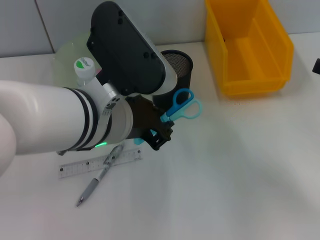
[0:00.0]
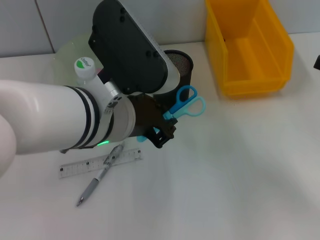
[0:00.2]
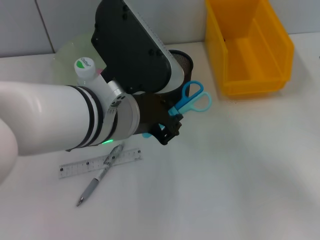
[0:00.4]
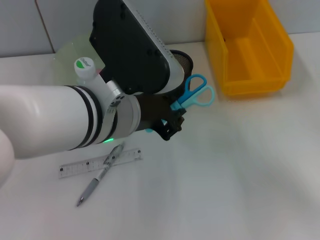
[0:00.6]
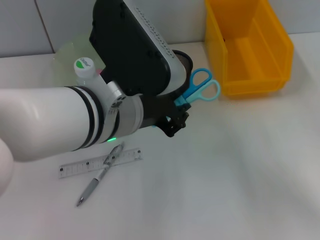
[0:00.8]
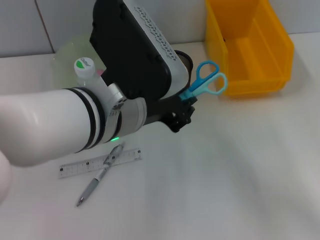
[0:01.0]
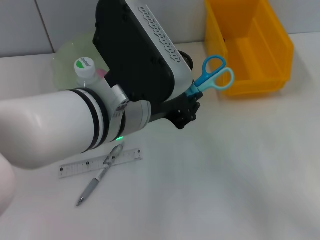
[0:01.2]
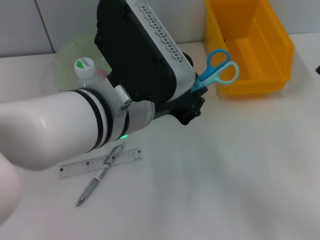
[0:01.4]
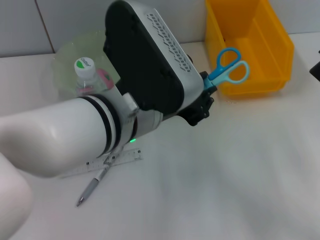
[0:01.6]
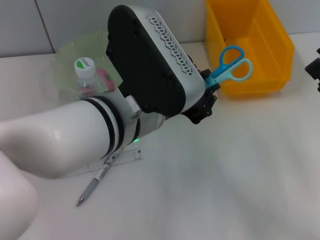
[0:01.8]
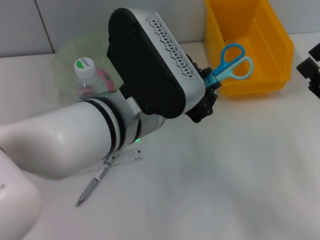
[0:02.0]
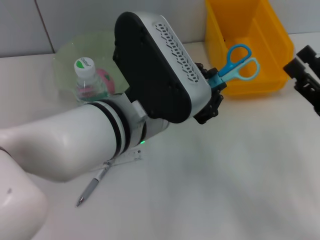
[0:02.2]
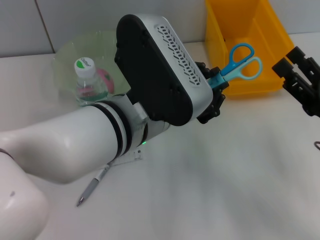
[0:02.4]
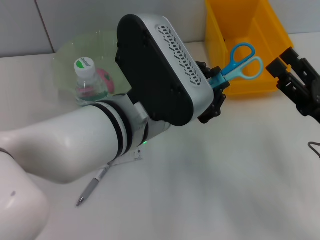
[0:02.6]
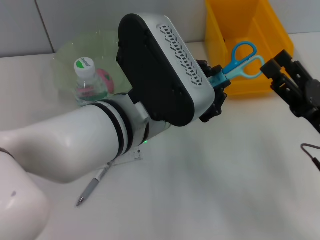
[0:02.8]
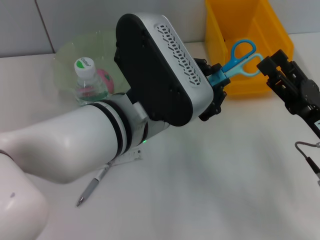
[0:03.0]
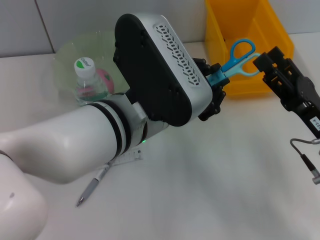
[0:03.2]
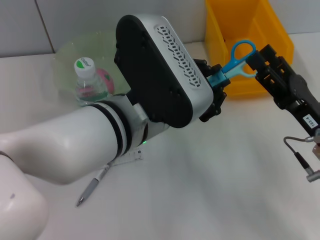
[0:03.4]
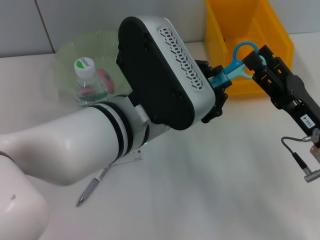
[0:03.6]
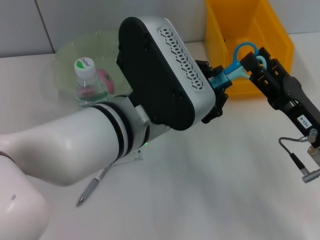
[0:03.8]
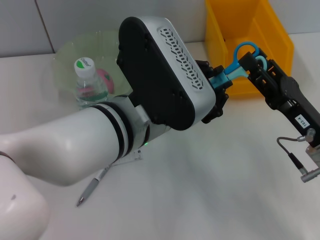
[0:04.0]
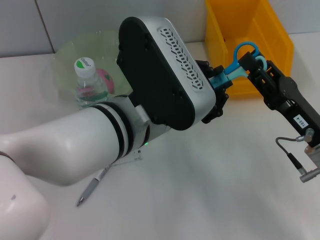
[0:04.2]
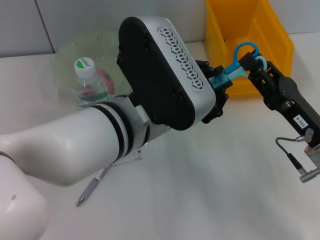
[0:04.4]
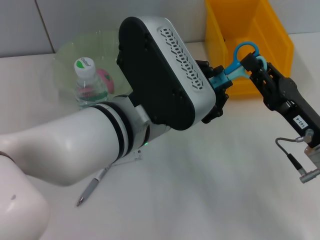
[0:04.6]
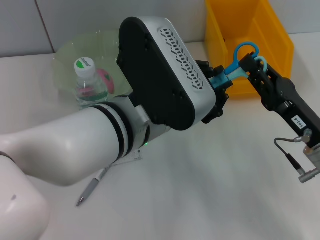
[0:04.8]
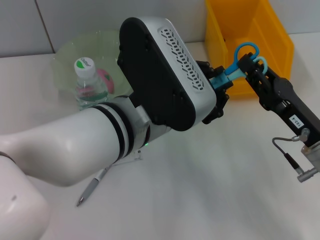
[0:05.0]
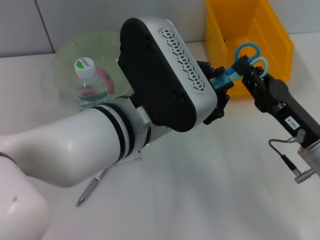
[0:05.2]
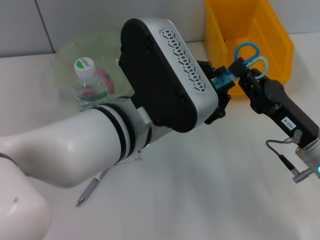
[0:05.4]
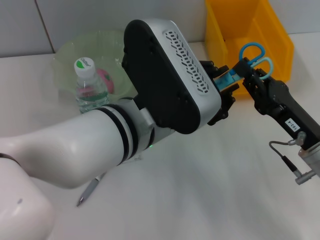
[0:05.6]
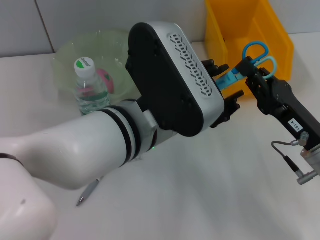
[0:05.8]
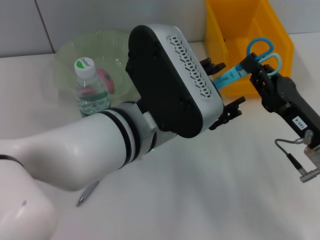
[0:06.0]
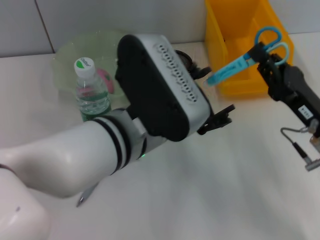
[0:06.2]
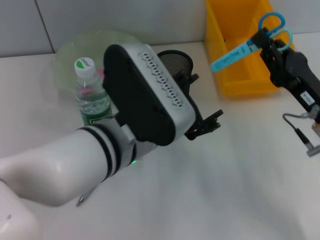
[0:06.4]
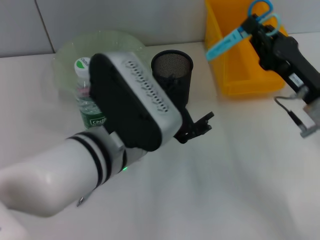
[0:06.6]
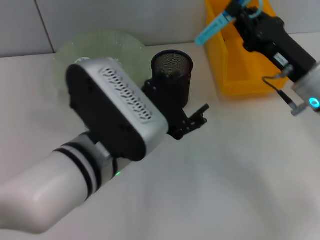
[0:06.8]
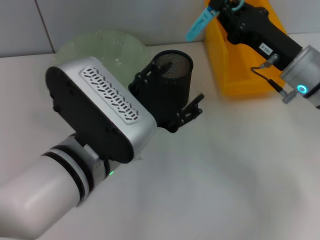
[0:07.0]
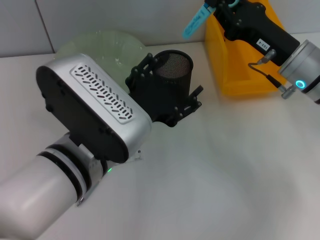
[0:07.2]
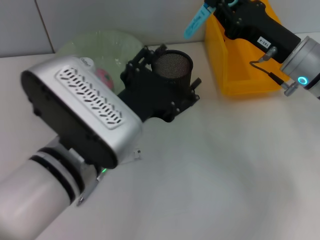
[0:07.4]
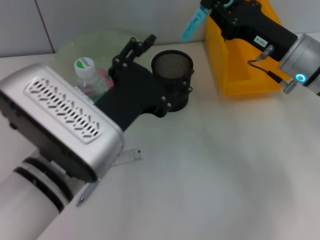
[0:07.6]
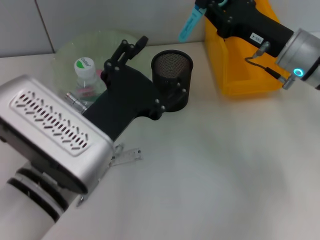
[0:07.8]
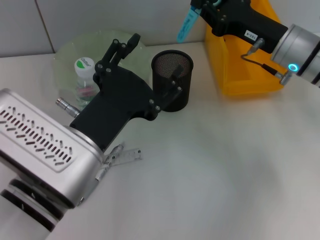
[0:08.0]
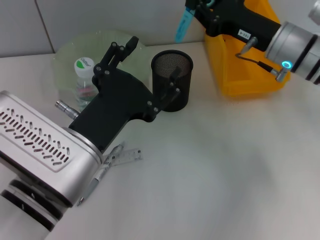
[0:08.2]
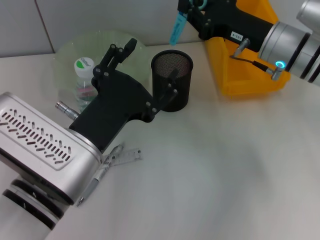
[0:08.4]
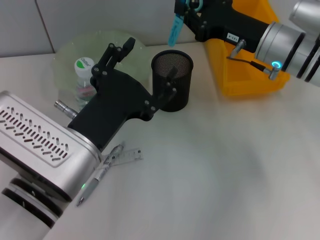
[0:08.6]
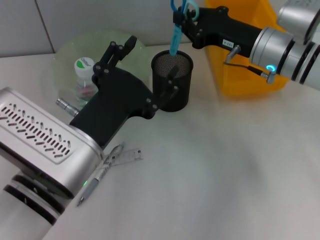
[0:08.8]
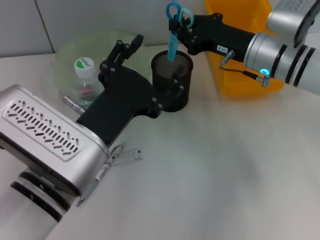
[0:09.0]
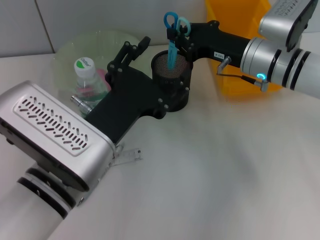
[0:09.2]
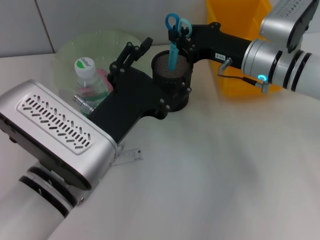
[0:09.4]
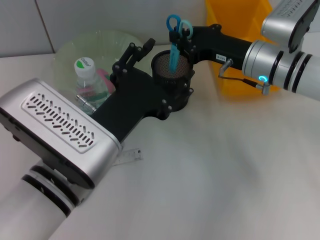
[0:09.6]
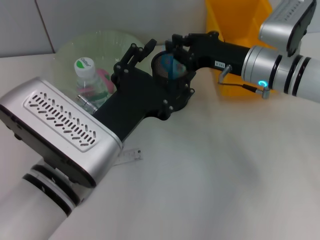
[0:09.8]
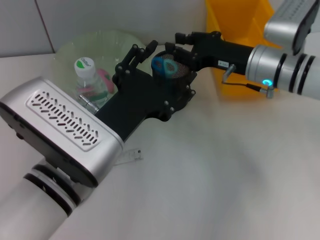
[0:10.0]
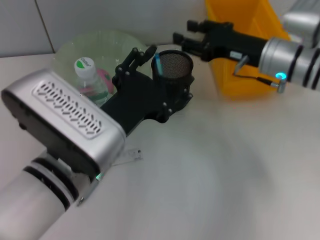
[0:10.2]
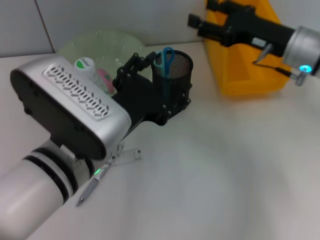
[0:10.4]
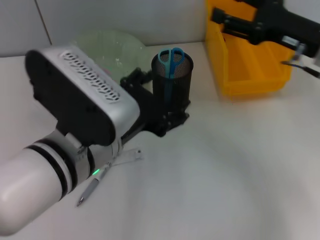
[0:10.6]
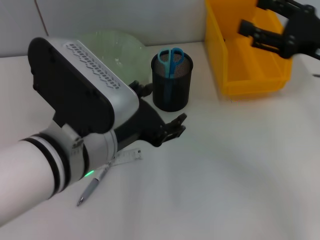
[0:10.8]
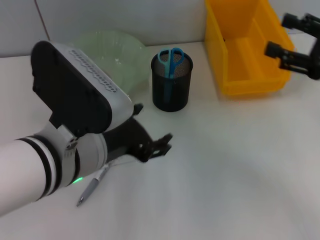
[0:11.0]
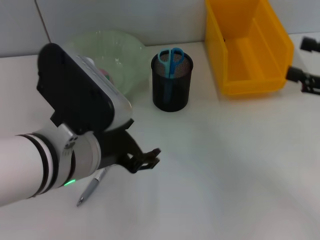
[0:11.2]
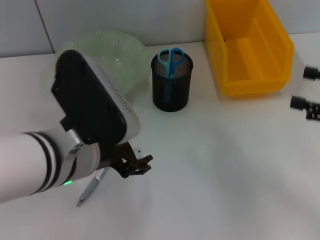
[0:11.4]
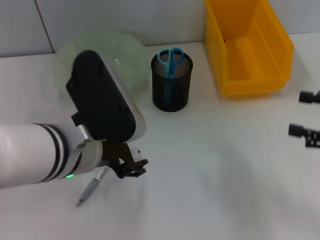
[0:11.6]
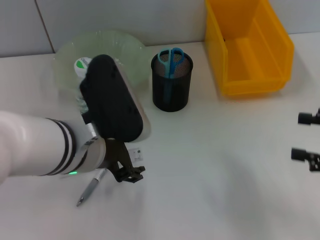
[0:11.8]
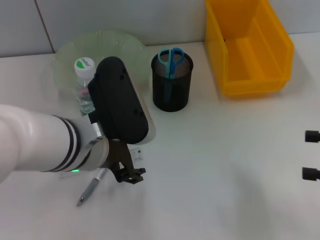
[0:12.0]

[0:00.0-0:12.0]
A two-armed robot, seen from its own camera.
Step, 0:00.0 to 0:05.4: Pass the blue scissors from the left hand to the right hand.
Step, 0:05.6 to 0:10.4: Place the blue scissors into the pen holder with the right hand.
0:00.0 to 0:01.6: The right gripper travels downward and to the left by roughly 10 cm.
0:01.6 to 0:03.0: The right gripper travels to the left by about 5 cm.
0:03.0 to 0:04.4: The right gripper closes.
0:04.4 to 0:06.0: The right gripper closes its fingers.
0:06.0 to 0:07.6: The right gripper heads forward and upward, covering roughly 15 cm, while the left gripper shifts roughly 5 cm to the left, and opens up.
0:09.0 to 0:10.4: The right gripper is displaced to the right by roughly 5 cm, and opens up.
0:10.4 to 0:12.0: The right gripper shifts roughly 20 cm backward and to the right.

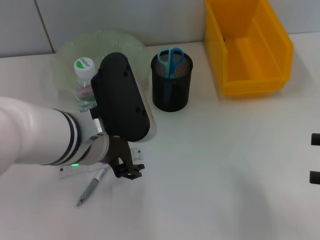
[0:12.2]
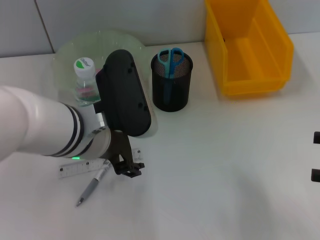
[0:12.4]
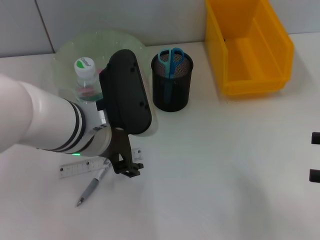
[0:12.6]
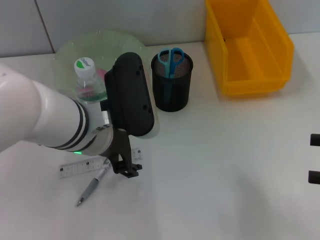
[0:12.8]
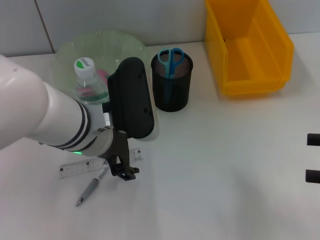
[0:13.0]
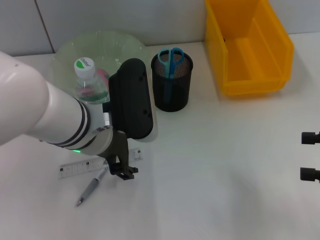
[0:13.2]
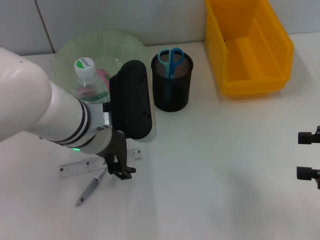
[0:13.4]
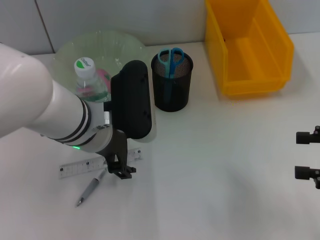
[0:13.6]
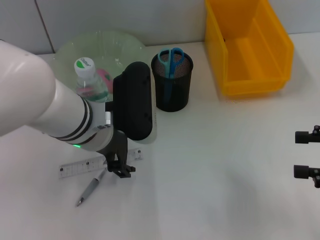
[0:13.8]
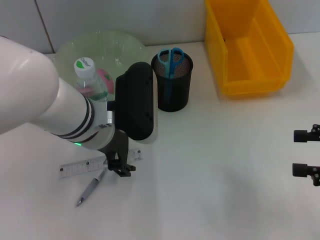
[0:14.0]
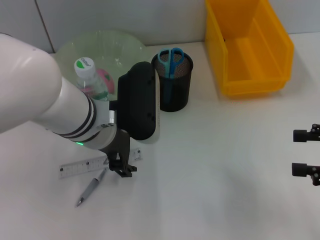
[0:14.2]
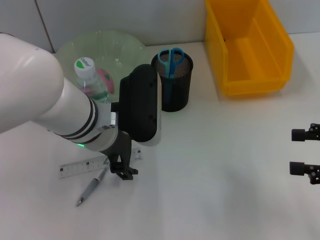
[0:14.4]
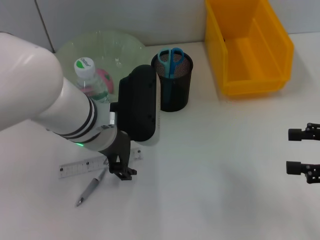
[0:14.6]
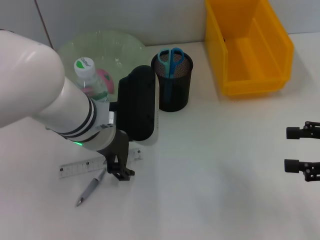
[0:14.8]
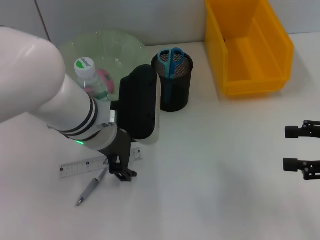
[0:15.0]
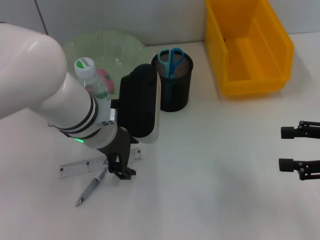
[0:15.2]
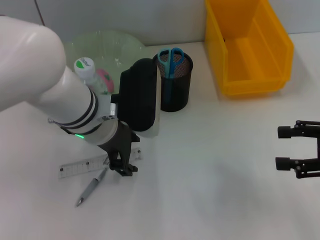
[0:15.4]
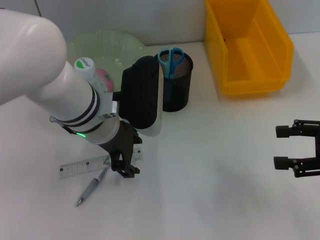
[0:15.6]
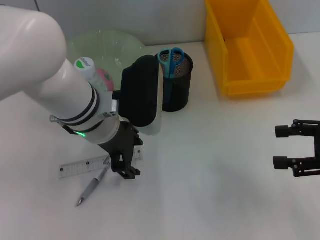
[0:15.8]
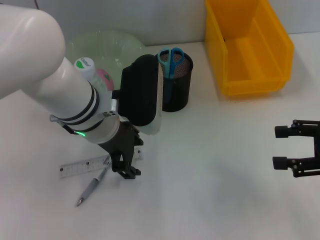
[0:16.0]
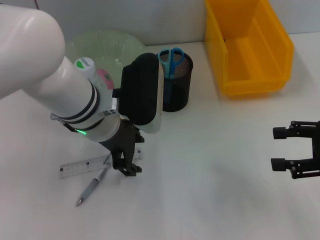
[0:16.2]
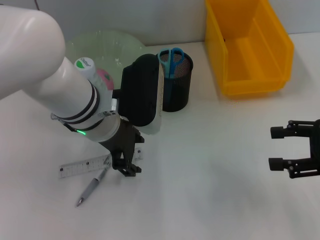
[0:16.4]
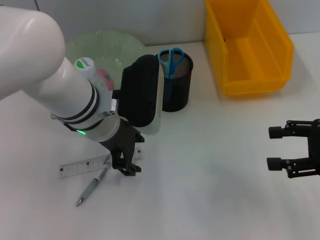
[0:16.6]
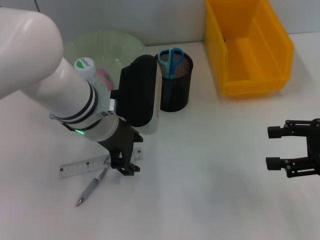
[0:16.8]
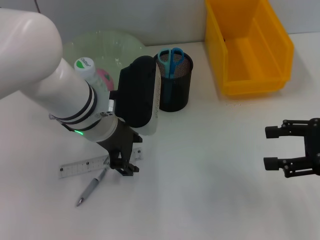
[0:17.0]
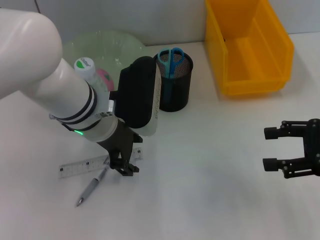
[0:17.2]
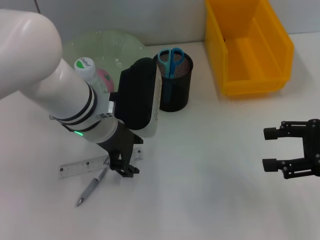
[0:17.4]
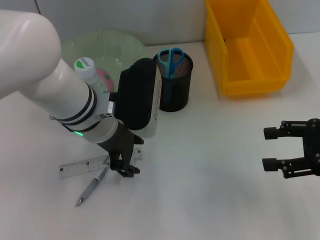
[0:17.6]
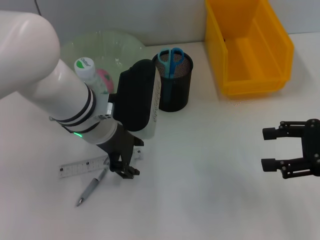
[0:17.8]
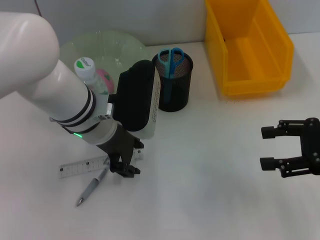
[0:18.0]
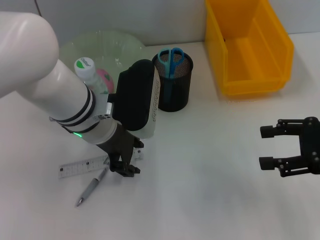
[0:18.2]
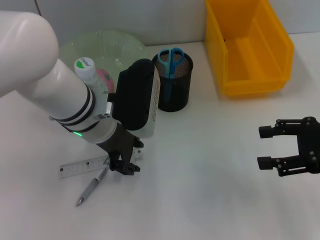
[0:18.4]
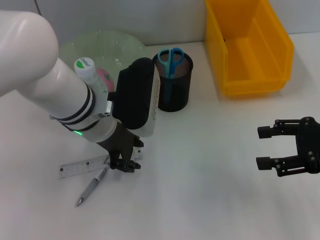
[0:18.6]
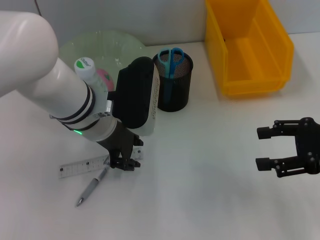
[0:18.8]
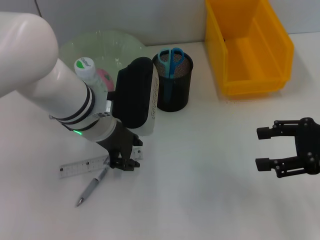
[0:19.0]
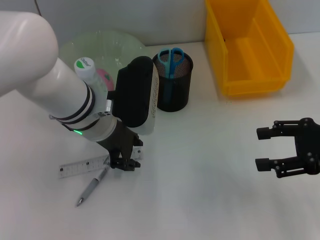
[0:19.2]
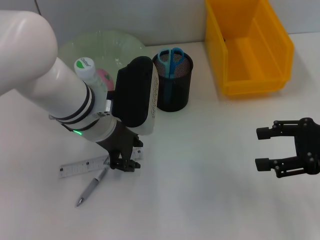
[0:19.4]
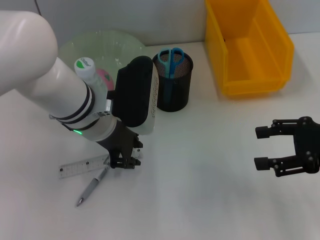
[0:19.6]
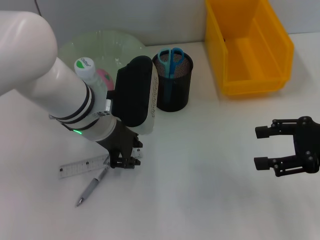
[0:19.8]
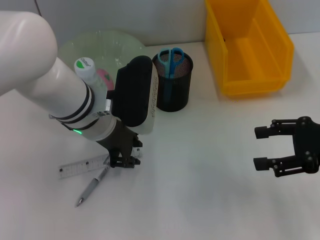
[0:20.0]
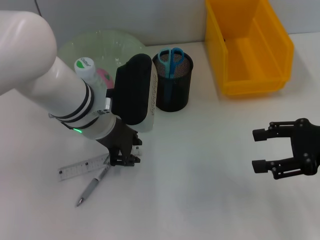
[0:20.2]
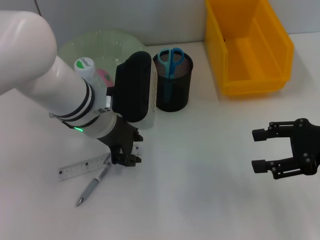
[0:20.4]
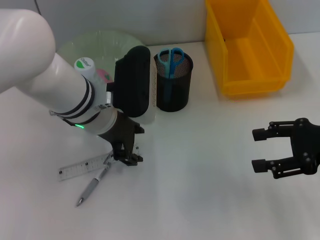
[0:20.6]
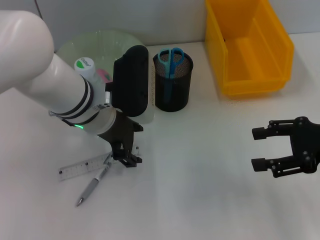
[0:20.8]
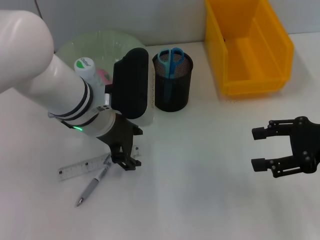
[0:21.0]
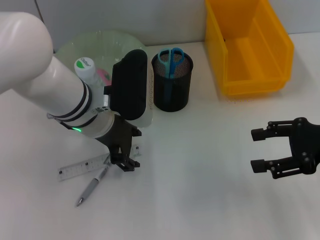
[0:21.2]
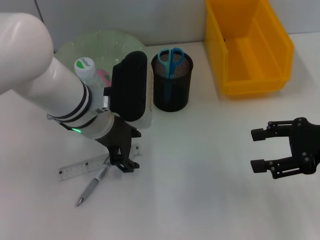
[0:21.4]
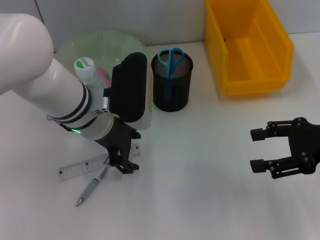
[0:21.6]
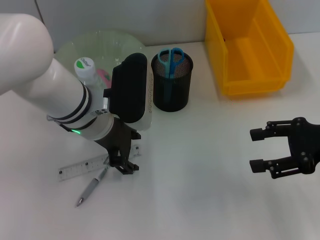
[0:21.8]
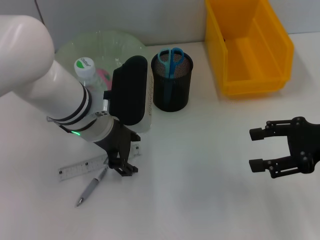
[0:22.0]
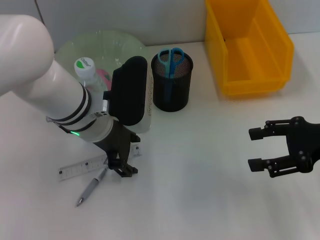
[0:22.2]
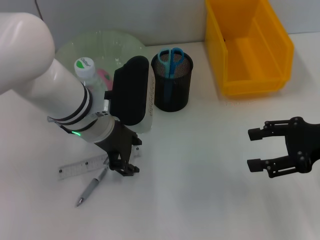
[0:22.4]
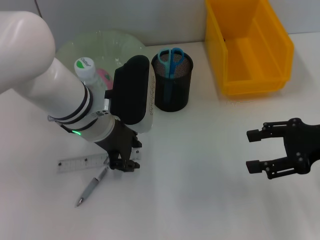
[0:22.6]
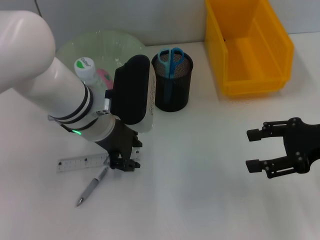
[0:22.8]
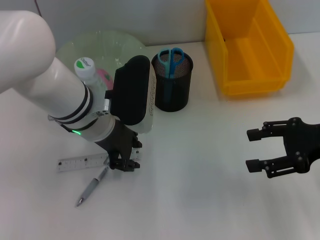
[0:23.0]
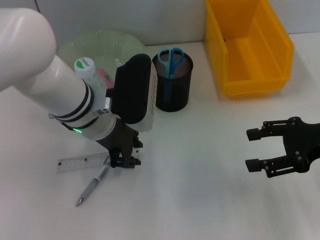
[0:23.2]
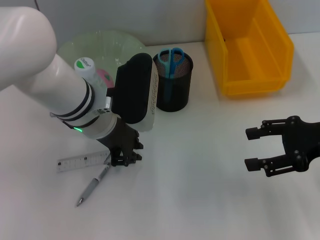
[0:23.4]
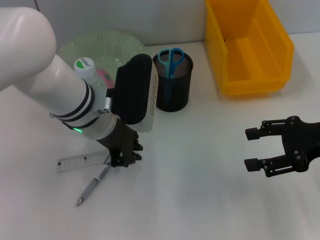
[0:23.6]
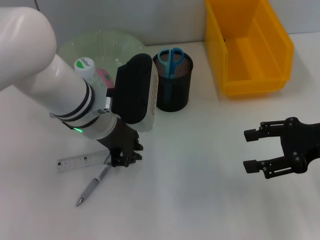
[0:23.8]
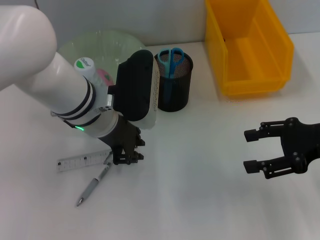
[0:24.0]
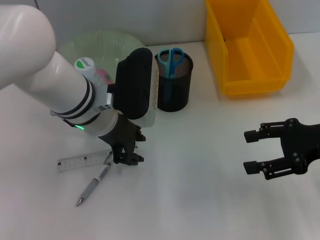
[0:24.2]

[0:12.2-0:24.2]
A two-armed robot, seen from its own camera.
0:12.2 to 0:13.8: The grippers stay close to where they were, moving slightly.
0:13.8 to 0:16.6: The grippers stay close to where they were, moving slightly.
0:16.6 to 0:18.2: Both grippers stay put.
0:18.2 to 0:19.8: Both grippers stay put.
0:19.8 to 0:21.2: The left gripper opens up.
0:21.2 to 0:24.2: Both grippers stay about where they are.
